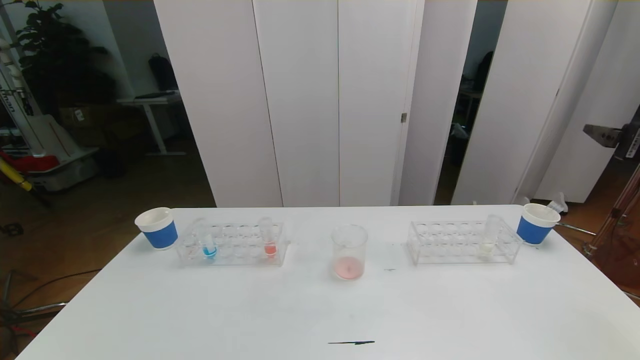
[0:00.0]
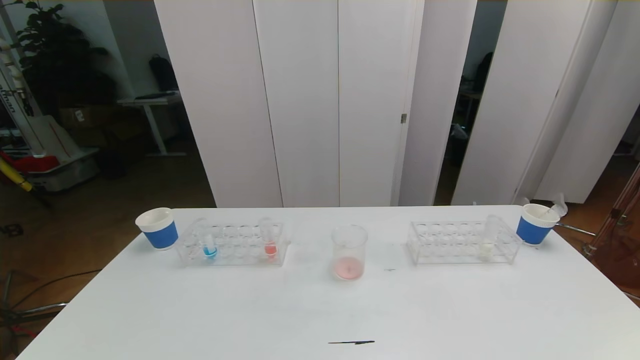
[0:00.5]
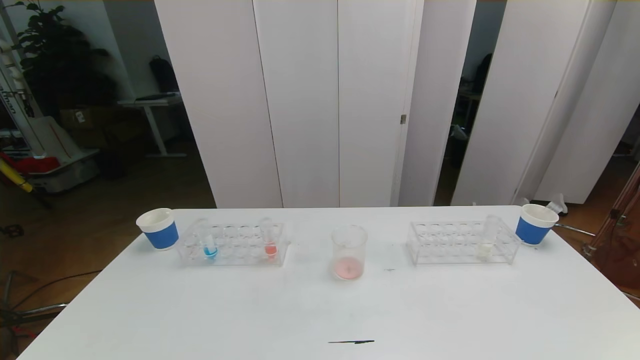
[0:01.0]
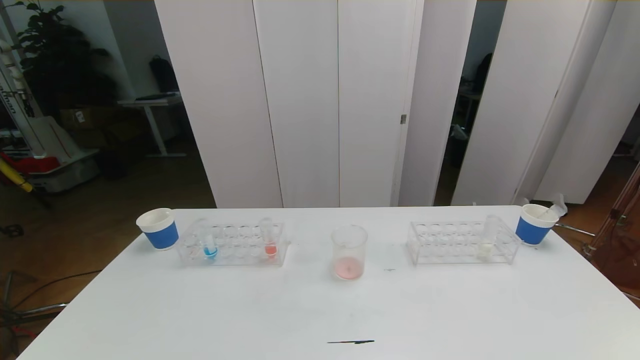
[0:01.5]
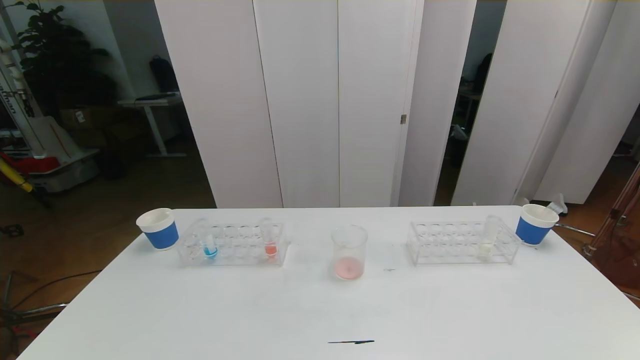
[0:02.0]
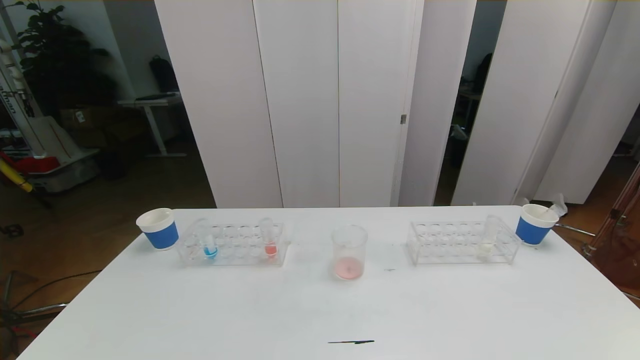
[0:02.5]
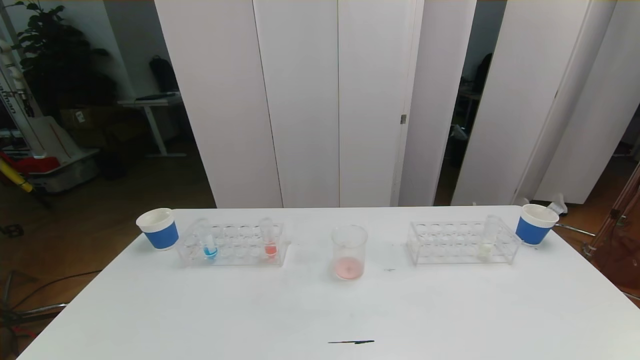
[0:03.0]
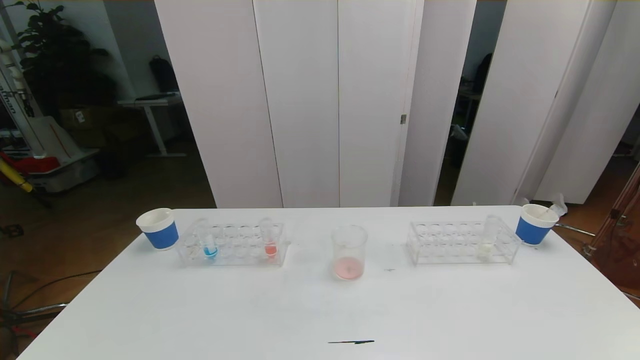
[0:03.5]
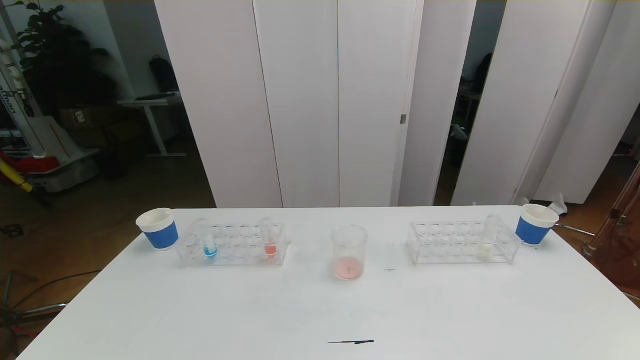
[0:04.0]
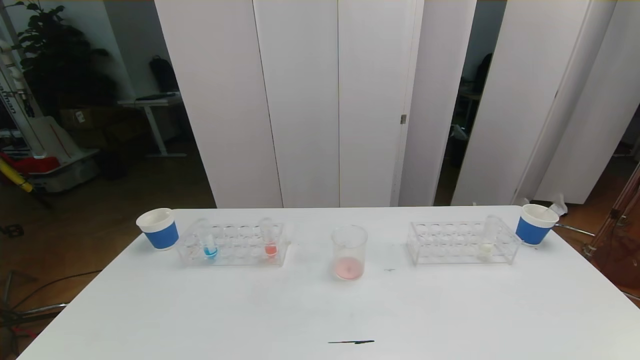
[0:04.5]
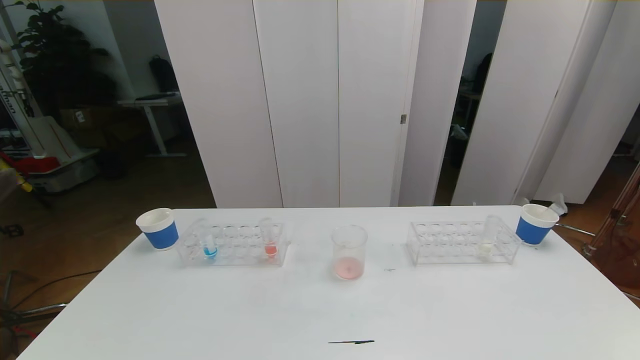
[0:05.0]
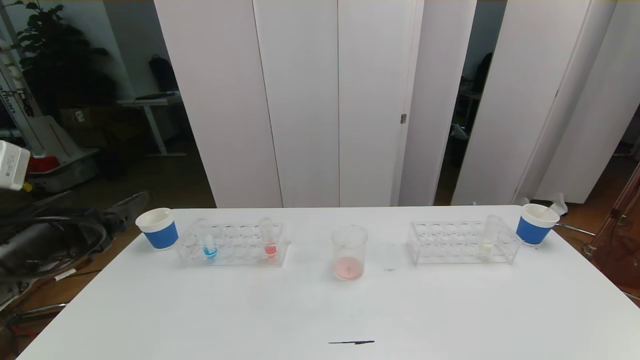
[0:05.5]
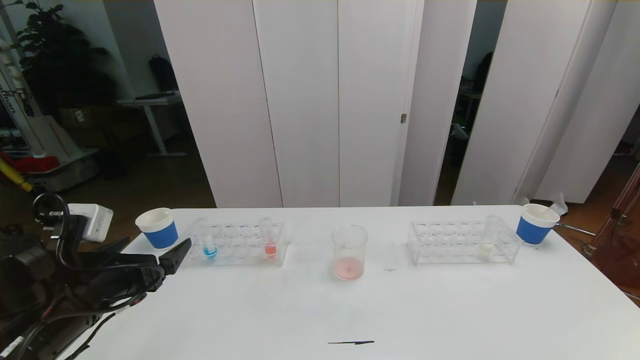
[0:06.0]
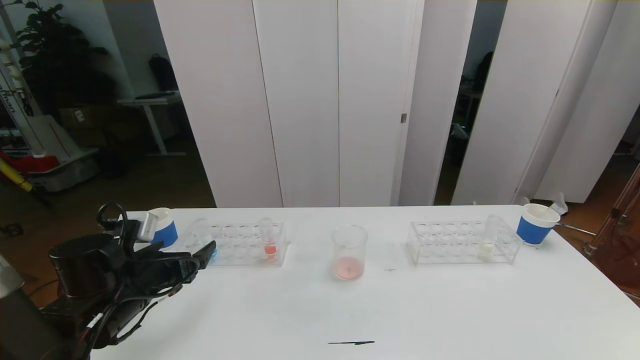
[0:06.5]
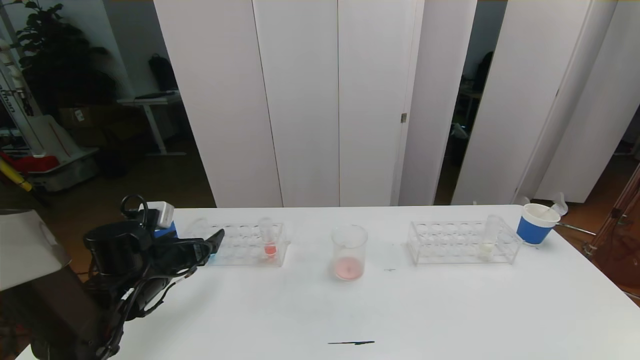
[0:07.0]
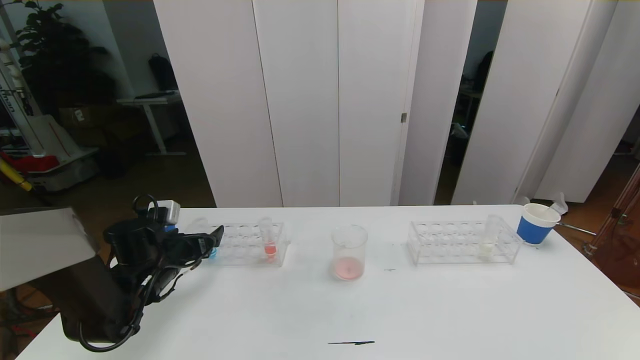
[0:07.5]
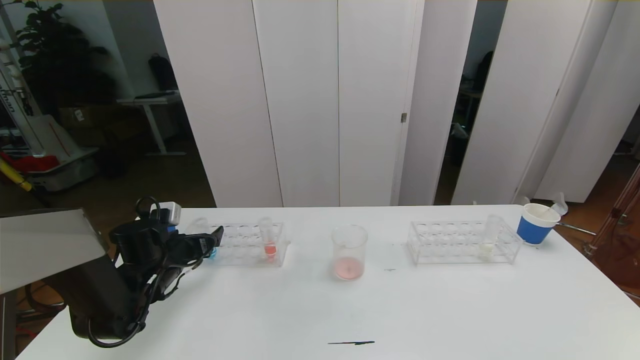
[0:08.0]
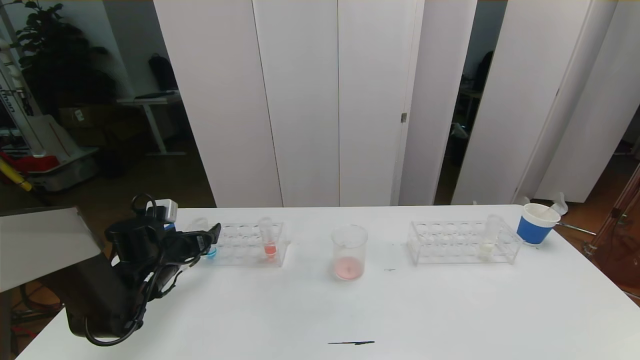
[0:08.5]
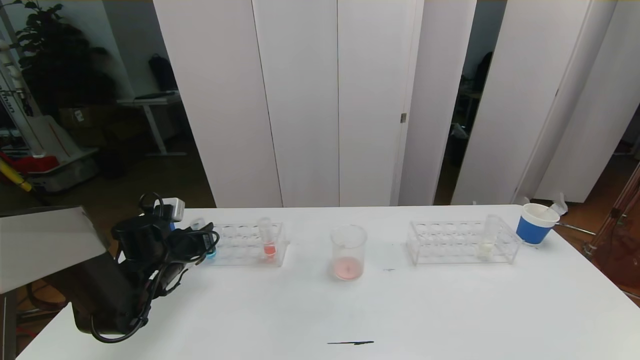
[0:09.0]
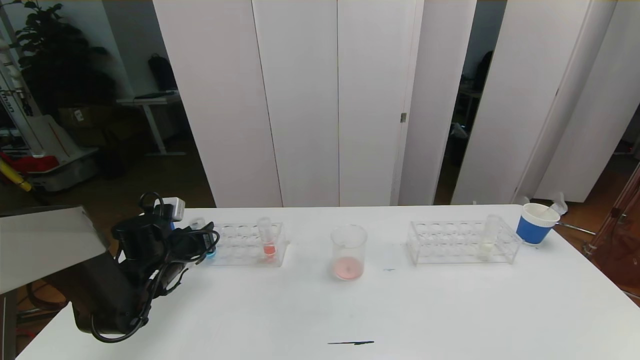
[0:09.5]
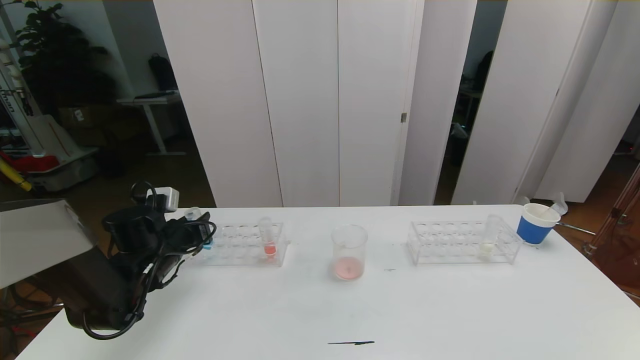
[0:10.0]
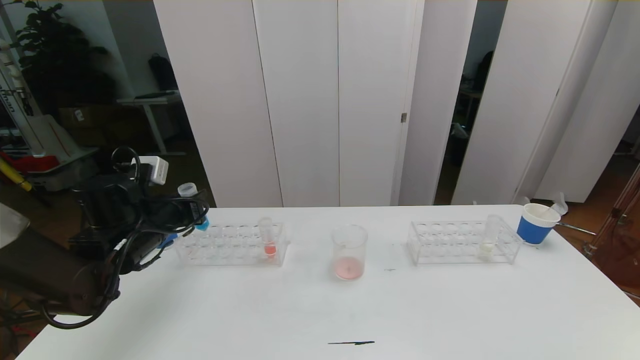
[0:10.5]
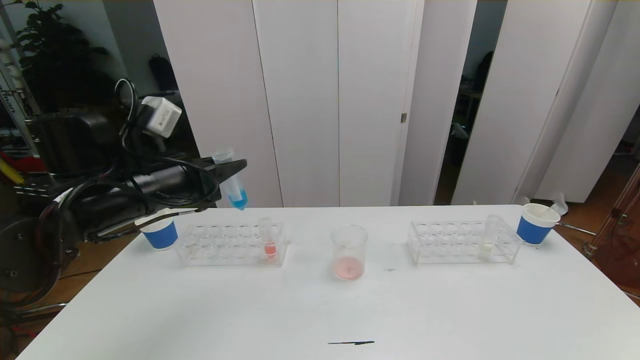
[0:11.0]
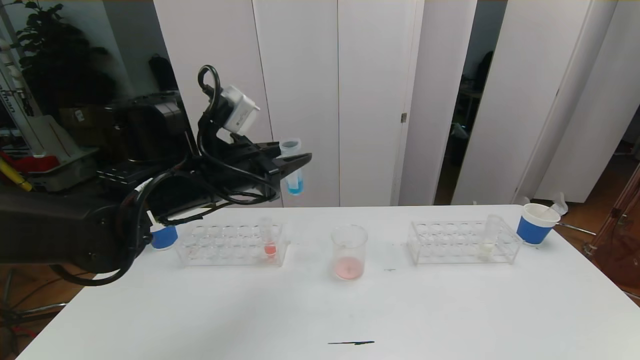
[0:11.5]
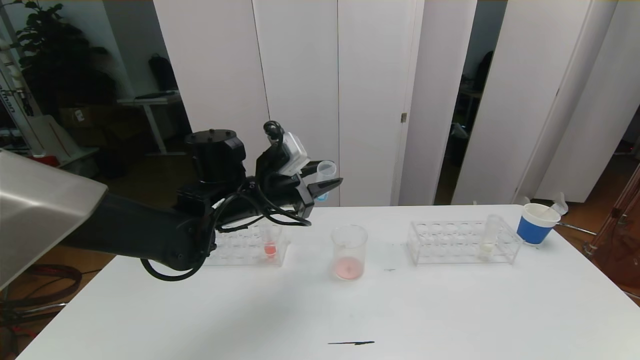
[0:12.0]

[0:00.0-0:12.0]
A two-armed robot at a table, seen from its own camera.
Task of the whole recording: pick up the test tube with red pigment the test tube with blue pigment and the test tube with white pigment by grippers and pour them into the beaker.
0:00.0 to 0:02.0: The right gripper goes about 35 cm backward and downward.
0:04.0 to 0:06.0: The left gripper shifts some 25 cm forward.
0:06.0 to 0:08.0: The left gripper heads forward and downward, covering approximately 15 cm.
0:08.0 to 0:10.0: The left gripper closes its fingers.
0:10.0 to 0:12.0: The left gripper heads to the right and upward, covering some 20 cm.

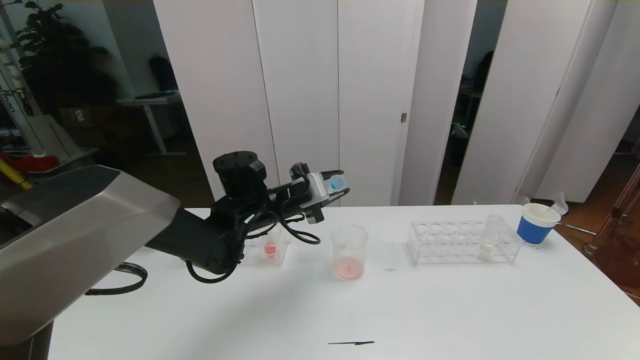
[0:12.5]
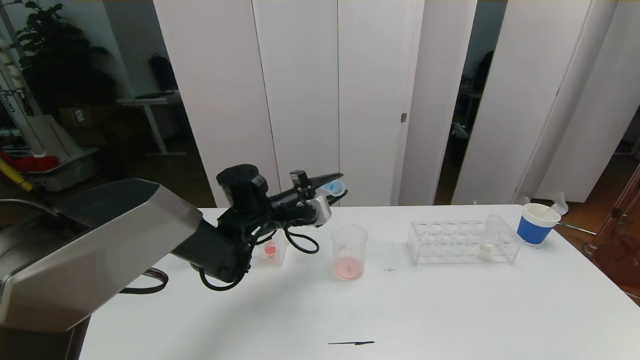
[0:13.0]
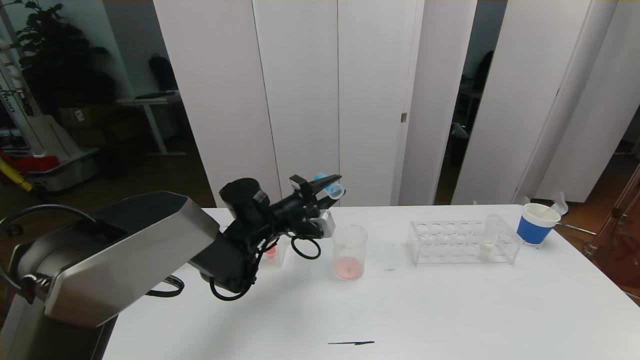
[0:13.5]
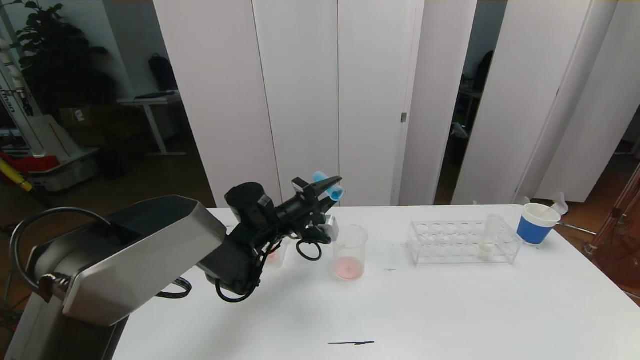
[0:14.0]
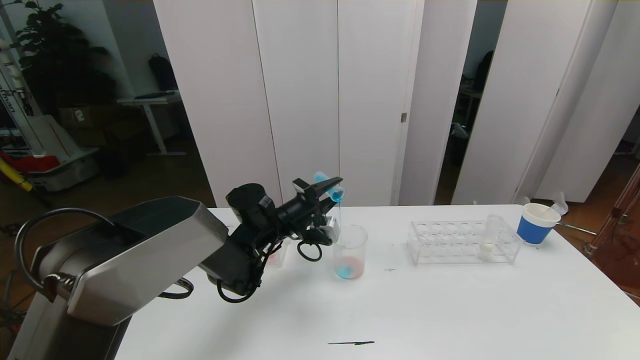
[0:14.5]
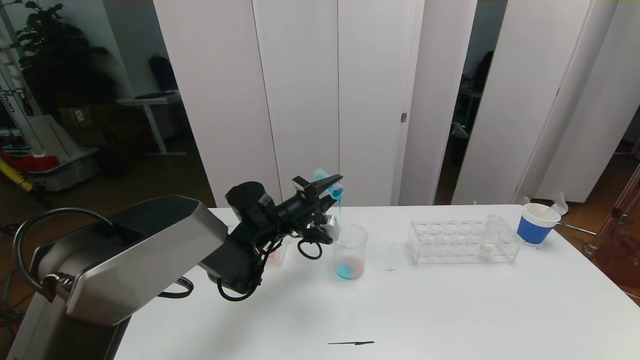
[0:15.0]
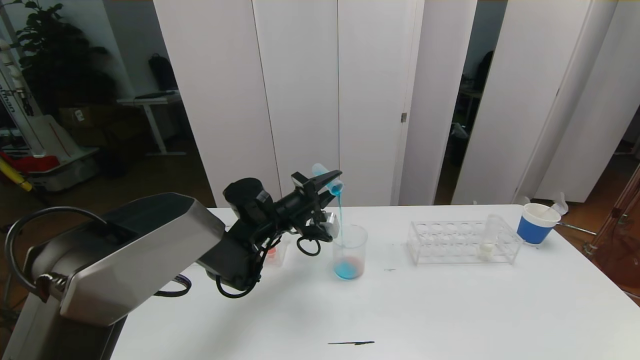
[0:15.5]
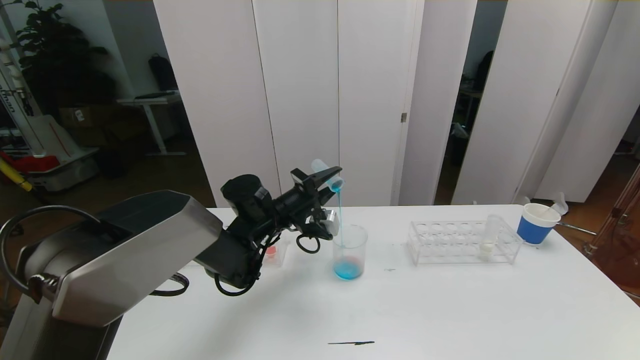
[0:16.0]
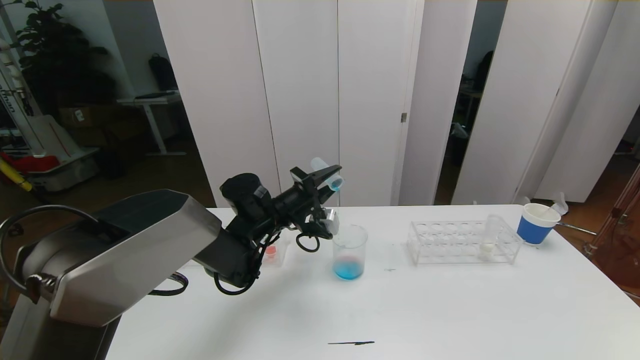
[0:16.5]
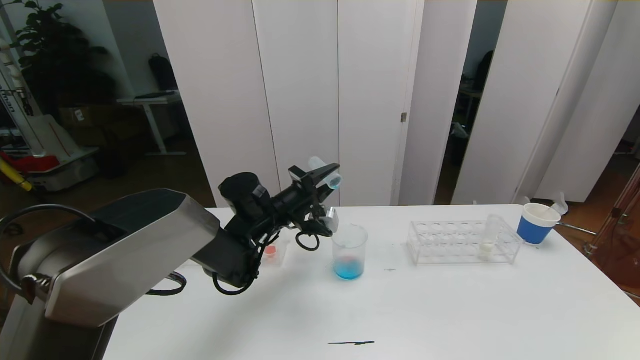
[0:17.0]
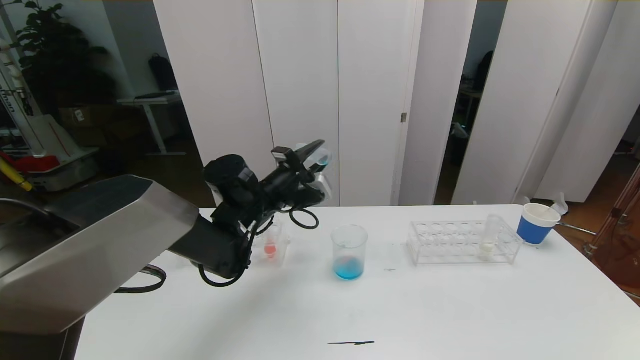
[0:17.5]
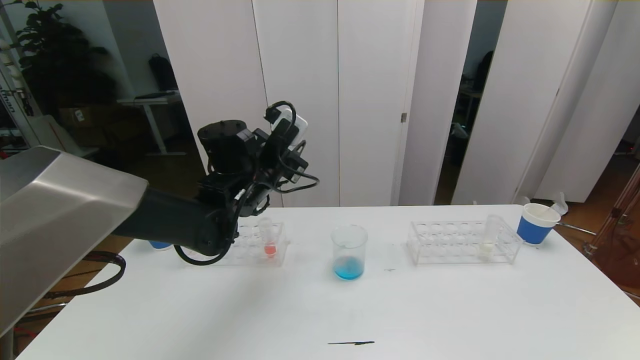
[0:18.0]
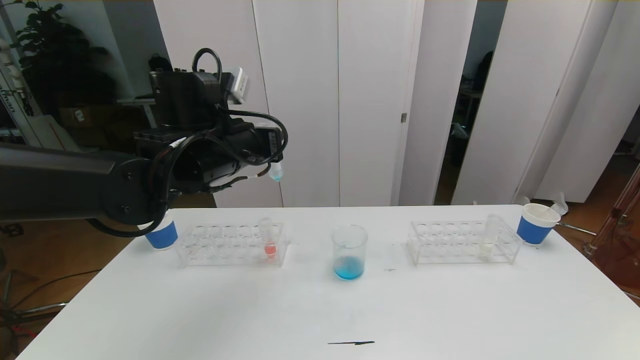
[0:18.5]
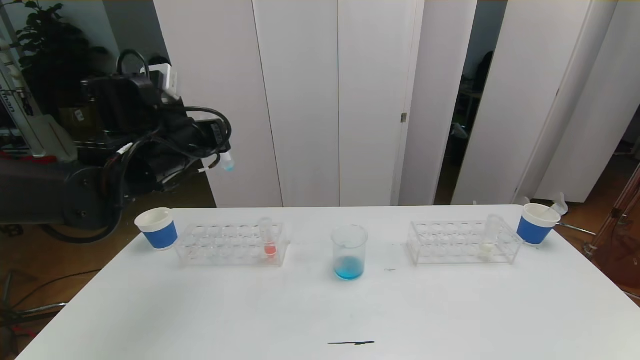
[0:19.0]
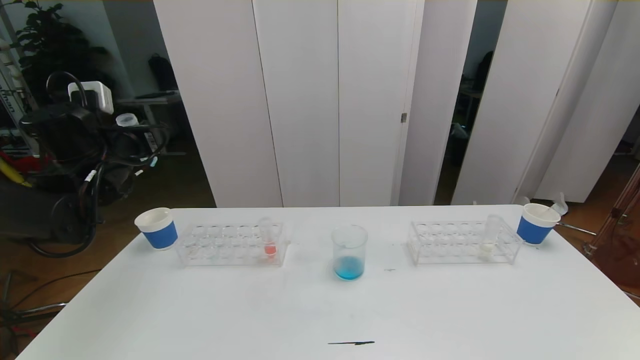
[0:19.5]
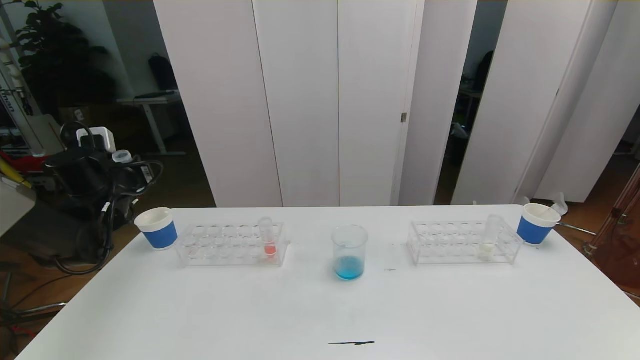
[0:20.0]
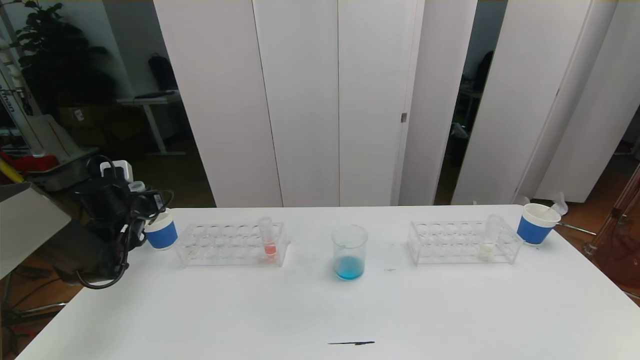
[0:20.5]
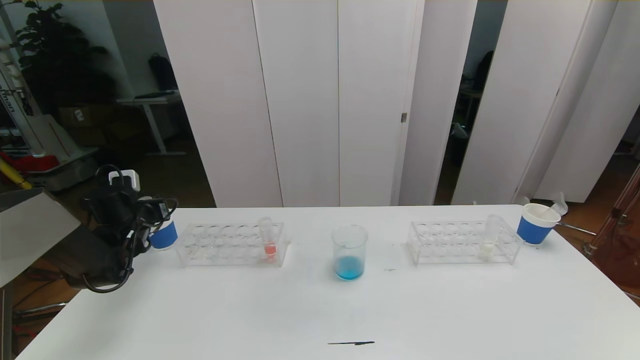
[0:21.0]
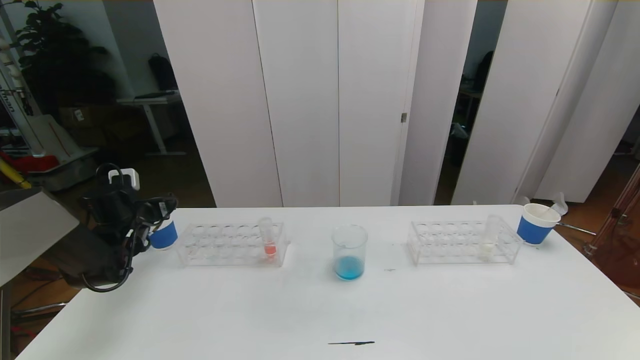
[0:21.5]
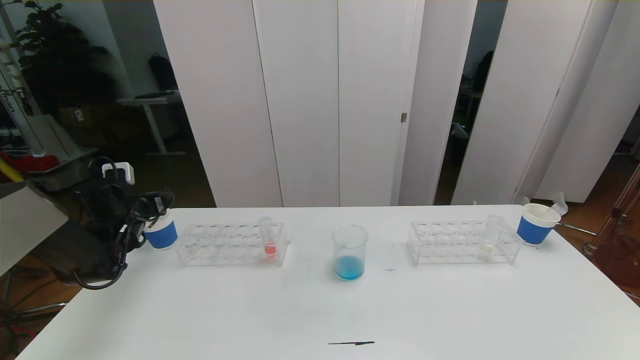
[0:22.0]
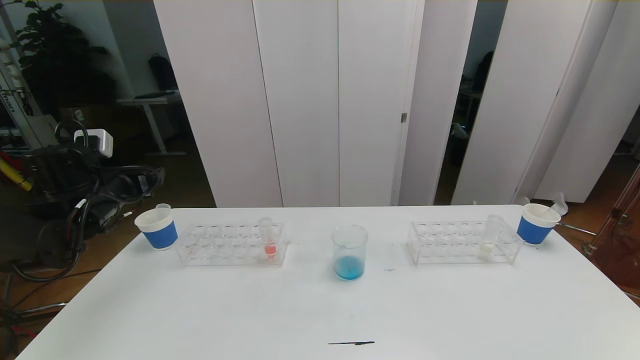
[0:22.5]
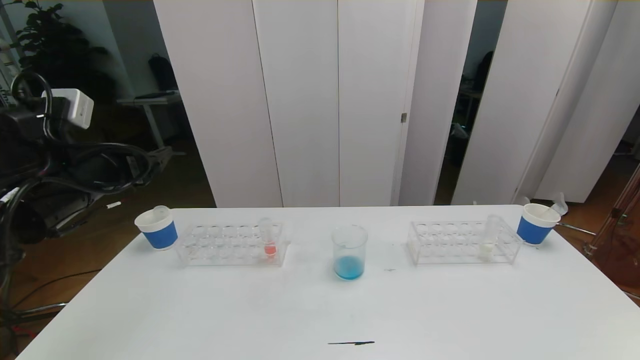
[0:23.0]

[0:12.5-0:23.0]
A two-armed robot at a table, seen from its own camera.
Task of the whole recording: pick up the test tube with red pigment the test tube with blue pigment and the test tube with white pigment by grippers and pour them into the beaker.
0:12.5 to 0:14.5: The left gripper goes approximately 5 cm downward.
0:14.5 to 0:16.5: There are only small adjustments of the grippers.
0:16.5 to 0:19.0: The left gripper goes approximately 20 cm upward and to the left.
0:19.0 to 0:21.0: The left gripper travels downward and to the left by roughly 25 cm.
0:21.0 to 0:23.0: The left gripper travels upward, backward and to the right by approximately 25 cm, and opens up.
